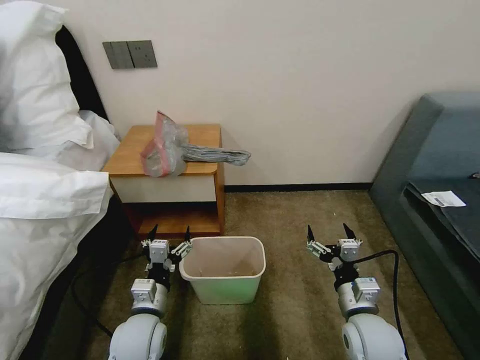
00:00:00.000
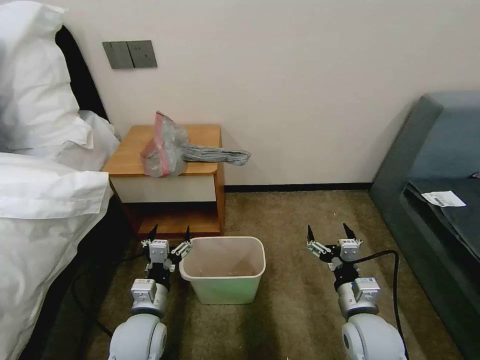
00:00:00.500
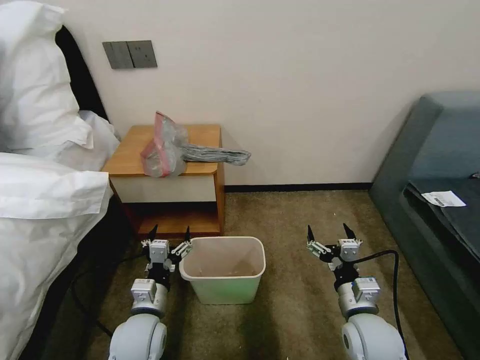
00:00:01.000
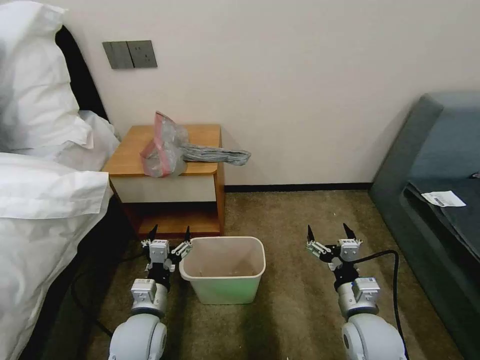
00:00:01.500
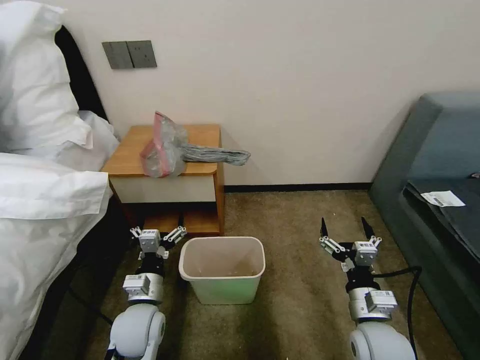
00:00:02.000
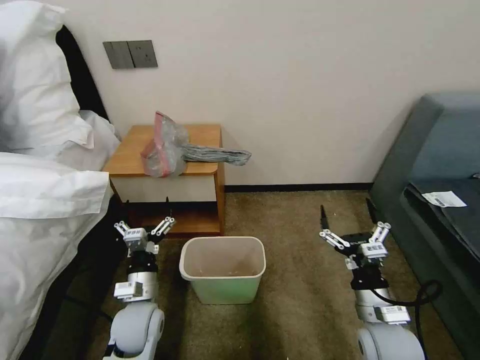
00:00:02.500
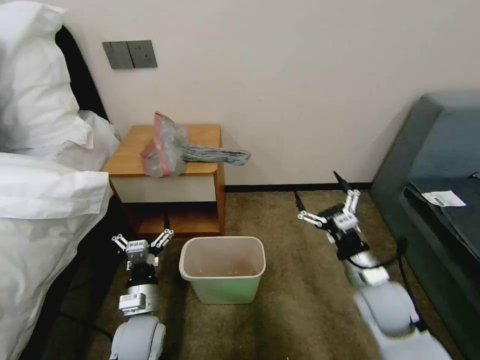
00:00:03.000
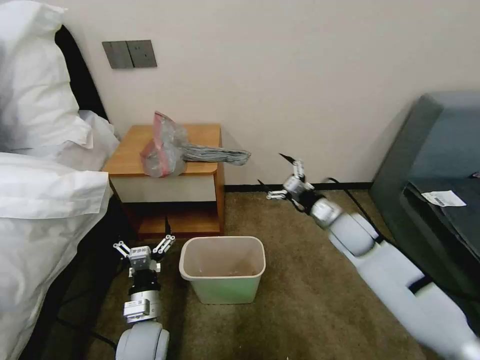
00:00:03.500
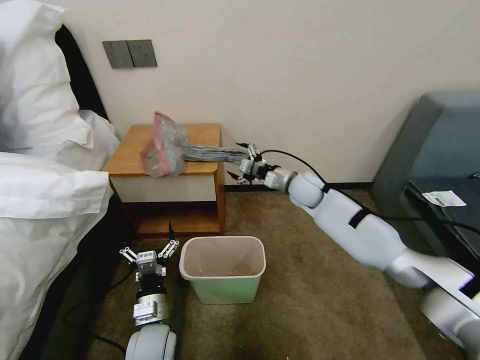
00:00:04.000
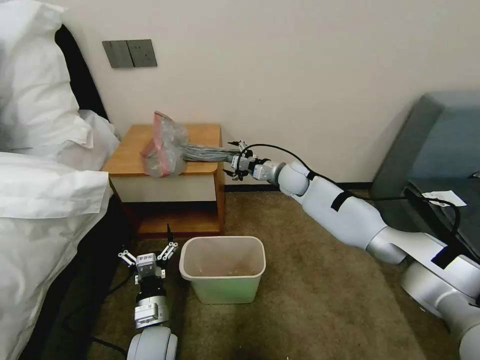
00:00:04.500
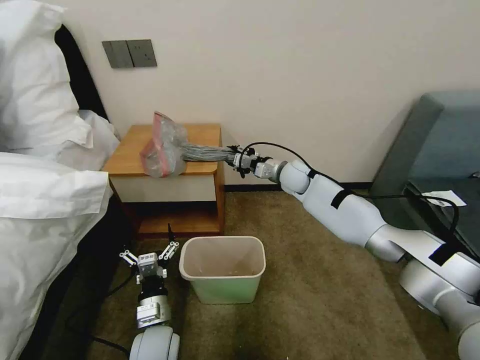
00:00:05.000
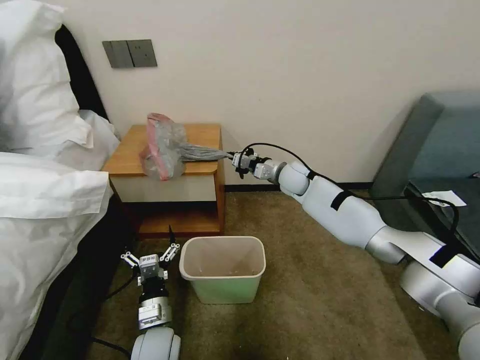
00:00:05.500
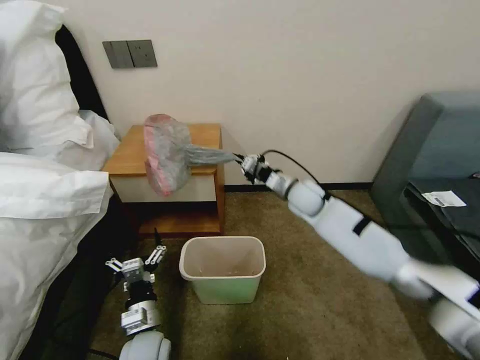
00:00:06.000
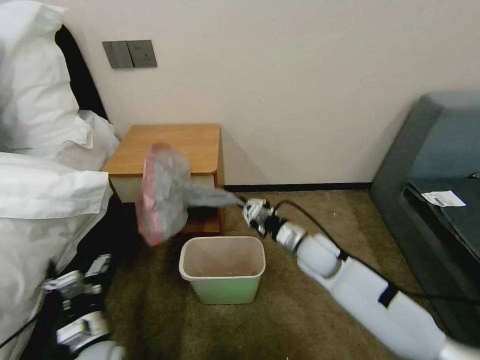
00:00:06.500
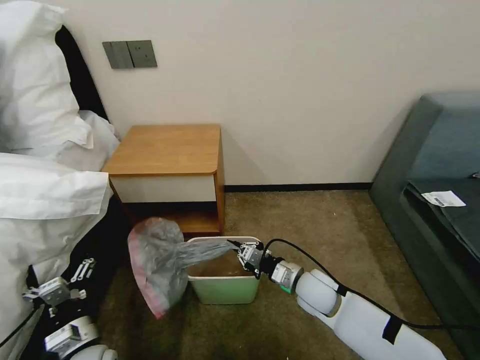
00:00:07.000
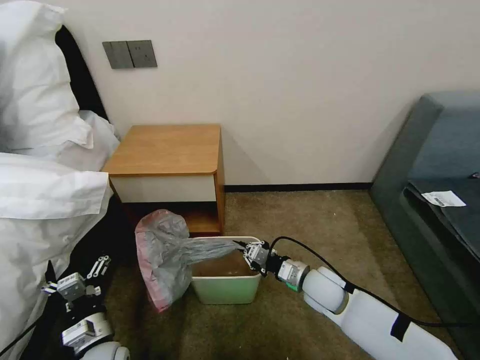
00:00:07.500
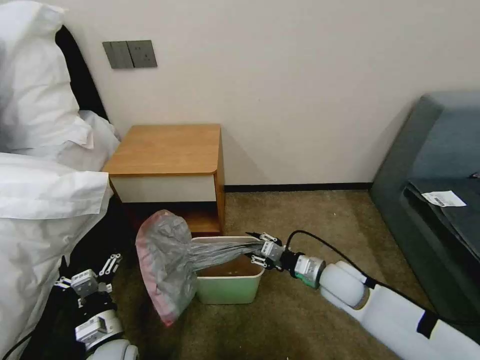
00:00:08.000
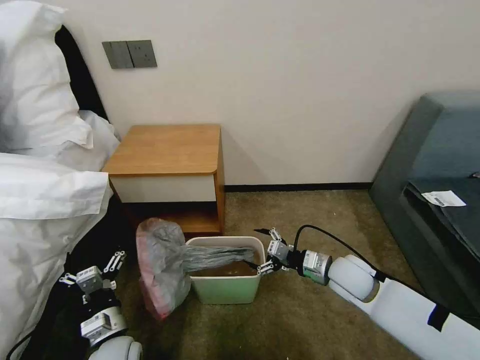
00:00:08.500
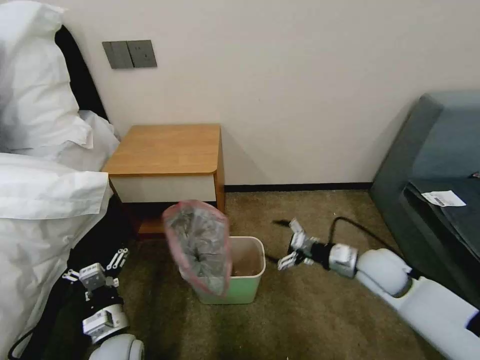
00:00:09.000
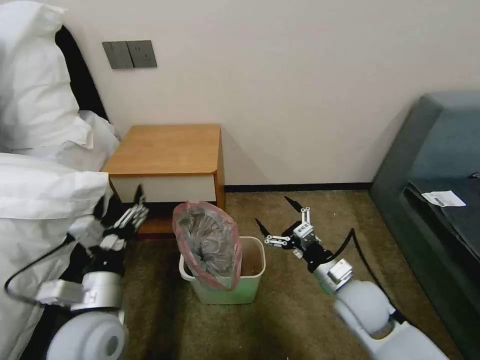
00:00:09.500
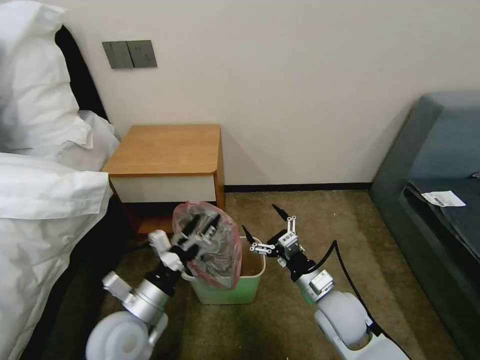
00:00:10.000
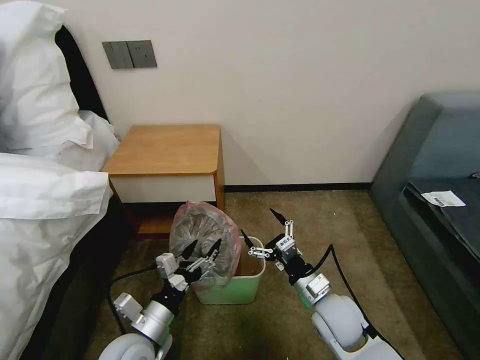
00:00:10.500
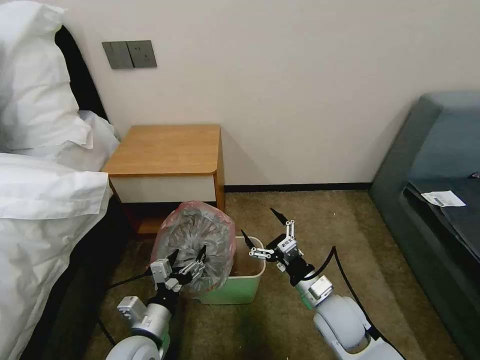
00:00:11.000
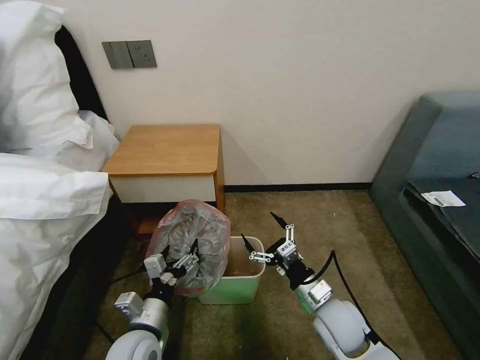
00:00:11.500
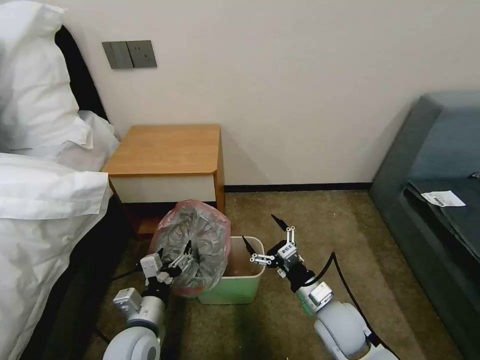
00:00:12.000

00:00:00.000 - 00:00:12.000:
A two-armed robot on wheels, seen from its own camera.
Task of the whole recording: Pick up the garbage bag from the table and place it over the trash can.
00:00:02.000 - 00:00:04.000: The left gripper is displaced downward by roughly 5 cm, while the right gripper is displaced forward by about 35 cm.
00:00:04.000 - 00:00:06.000: The right gripper closes its fingers.
00:00:06.000 - 00:00:08.000: The left gripper goes approximately 5 cm to the left; the right gripper heads backward and downward, covering approximately 20 cm, and opens up.
00:00:08.000 - 00:00:10.000: The right gripper goes approximately 5 cm backward, reaches some 10 cm to the right, then returns, and opens its fingers. The left gripper moves upward, approximately 10 cm.
00:00:10.000 - 00:00:12.000: The left gripper shifts about 5 cm downward.

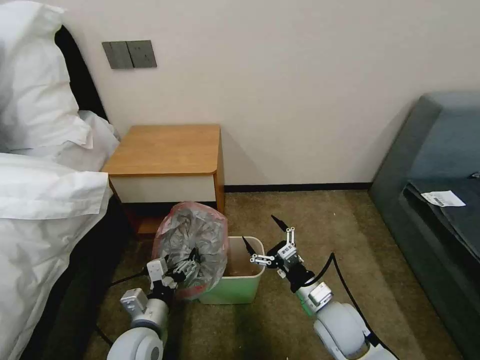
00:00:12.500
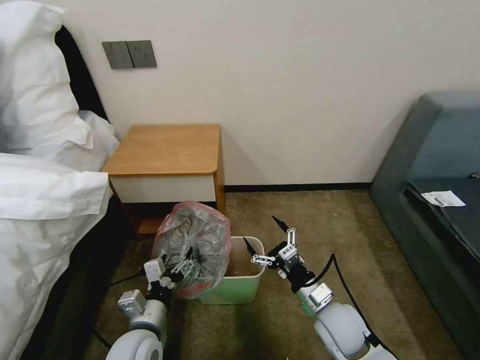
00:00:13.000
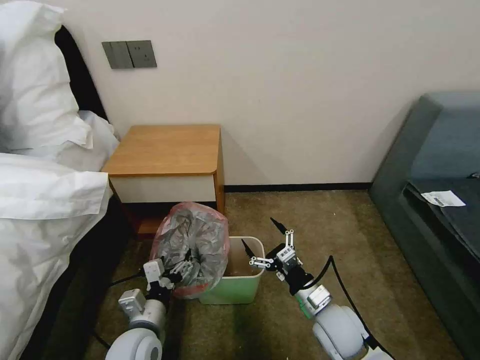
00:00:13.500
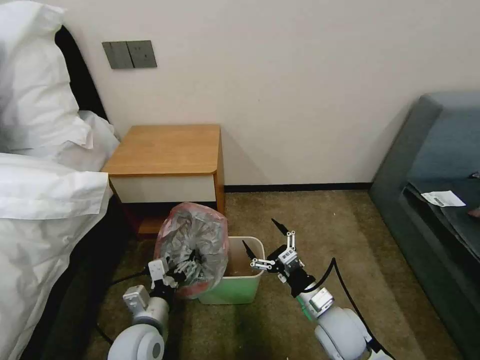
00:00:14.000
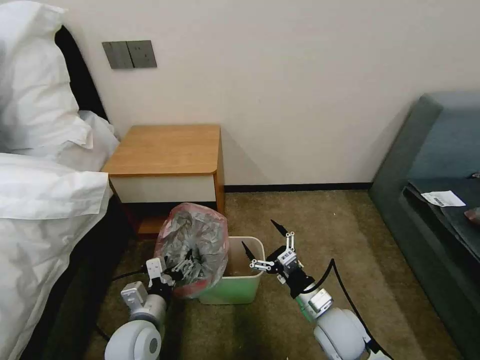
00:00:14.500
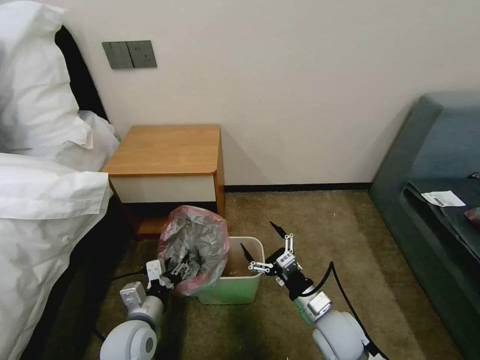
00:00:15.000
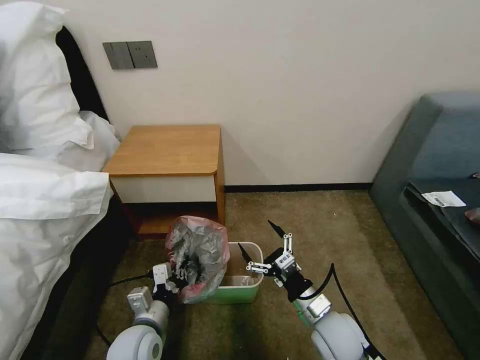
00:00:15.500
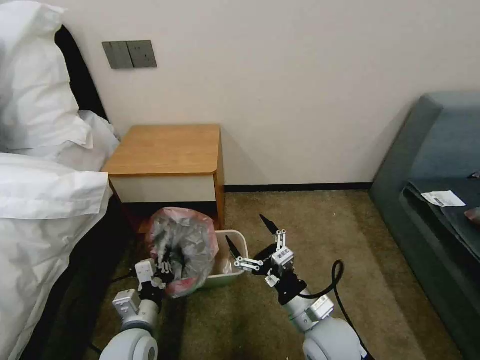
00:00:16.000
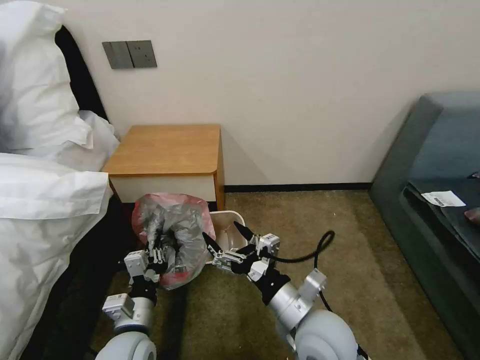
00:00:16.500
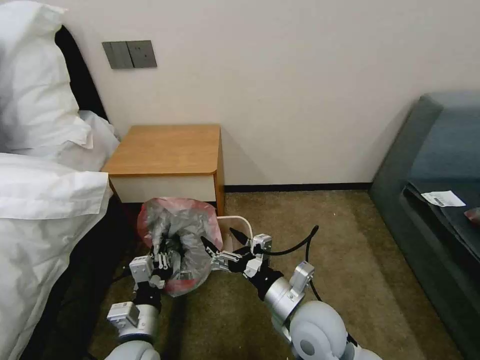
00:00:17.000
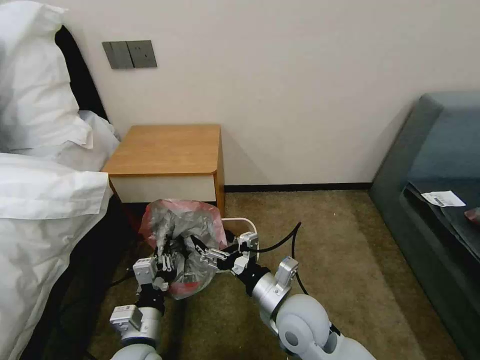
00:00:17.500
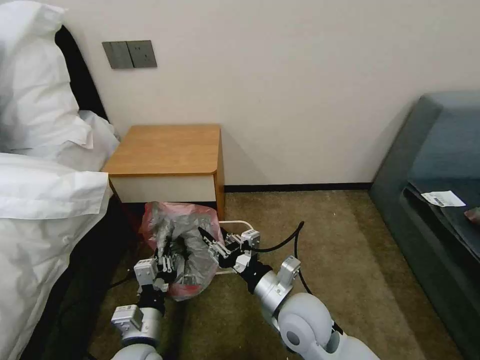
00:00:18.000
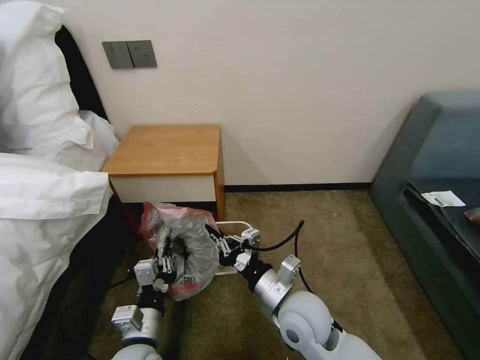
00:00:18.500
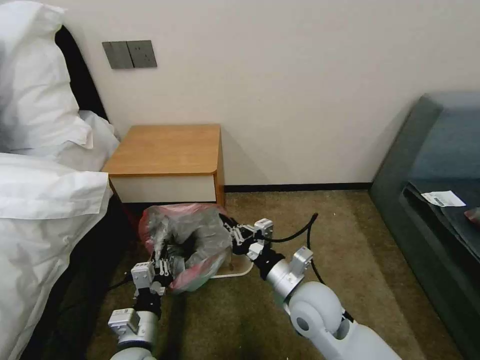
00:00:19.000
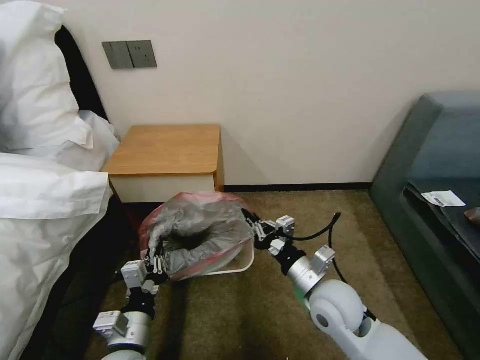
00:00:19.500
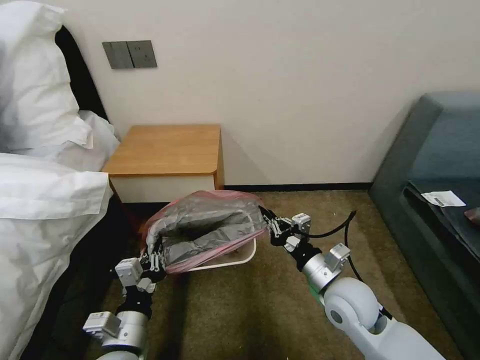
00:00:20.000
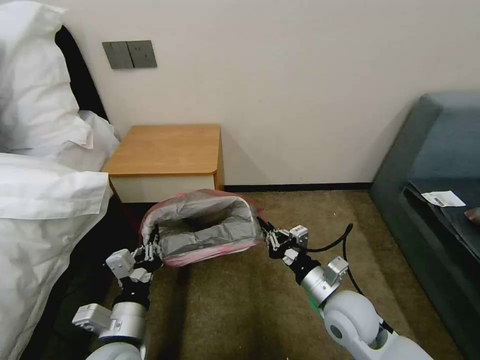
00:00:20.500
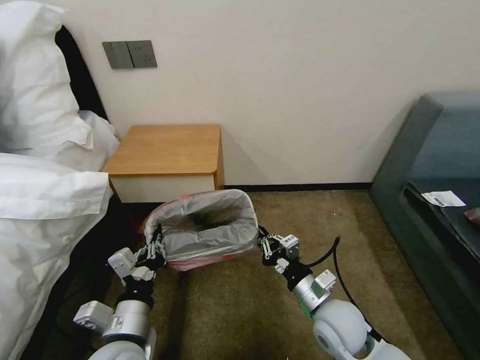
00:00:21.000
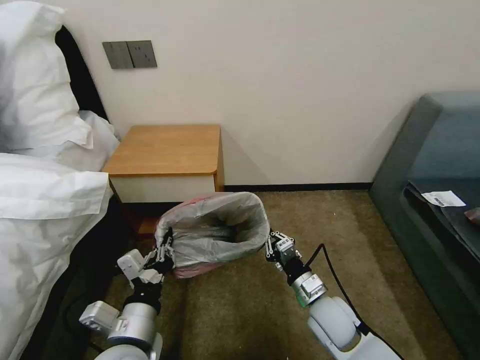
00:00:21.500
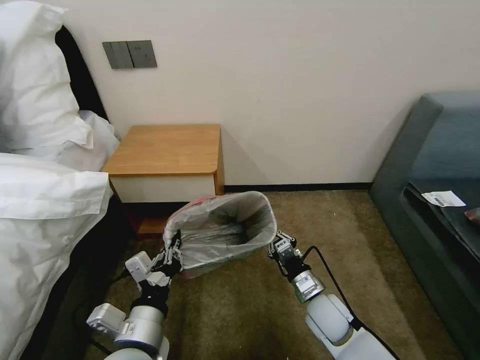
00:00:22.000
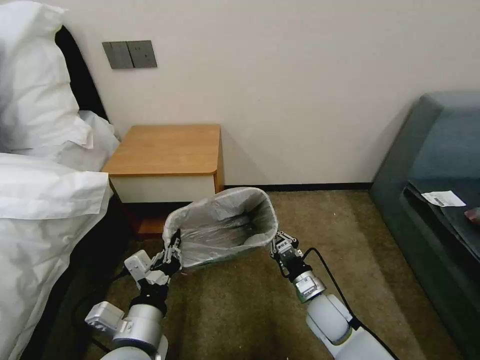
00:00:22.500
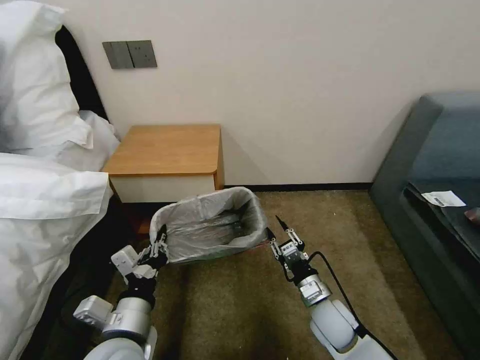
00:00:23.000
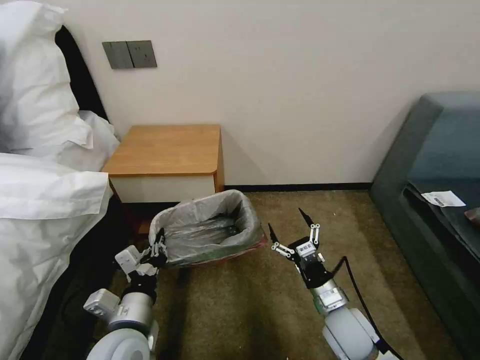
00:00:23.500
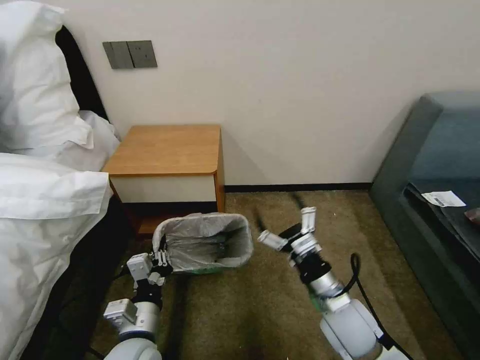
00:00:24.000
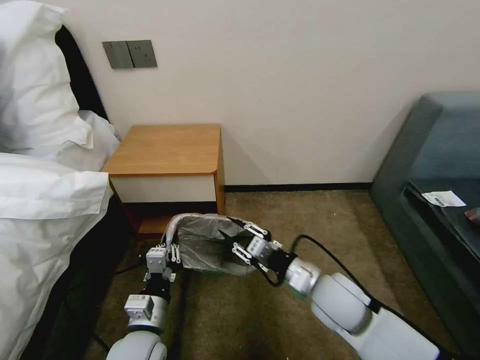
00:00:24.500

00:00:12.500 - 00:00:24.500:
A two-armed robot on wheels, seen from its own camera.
Task of the whole recording: Pick up the garbage bag from the table and place it over the trash can.
00:00:12.500 - 00:00:14.500: The grippers stay close to where they were, moving slightly.
00:00:14.500 - 00:00:16.500: The right gripper shifts roughly 15 cm upward and to the left; the left gripper closes.
00:00:16.500 - 00:00:18.500: The right gripper shifts by some 5 cm, and closes.
00:00:18.500 - 00:00:20.500: The right gripper shifts roughly 10 cm to the right, while the left gripper moves upward, roughly 5 cm.
00:00:20.500 - 00:00:22.500: The right gripper is displaced downward by some 10 cm.
00:00:22.500 - 00:00:24.500: The left gripper heads downward, covering some 5 cm; the right gripper travels upward by about 15 cm, and opens.

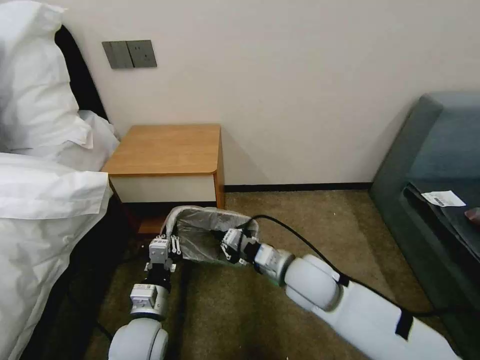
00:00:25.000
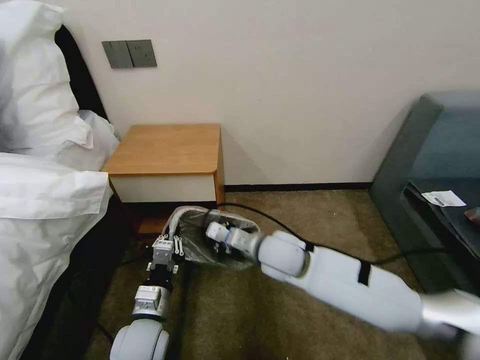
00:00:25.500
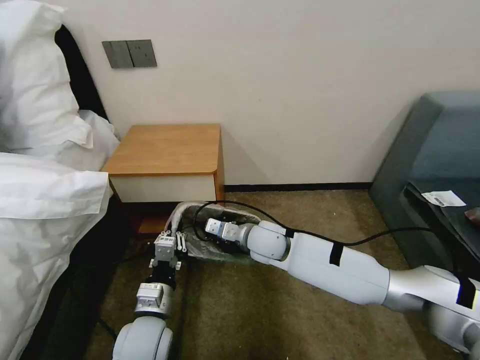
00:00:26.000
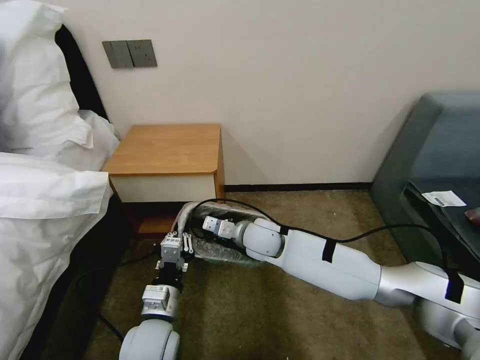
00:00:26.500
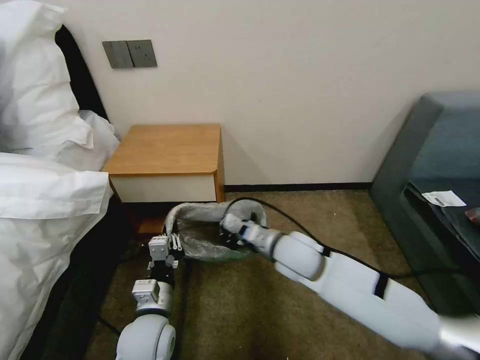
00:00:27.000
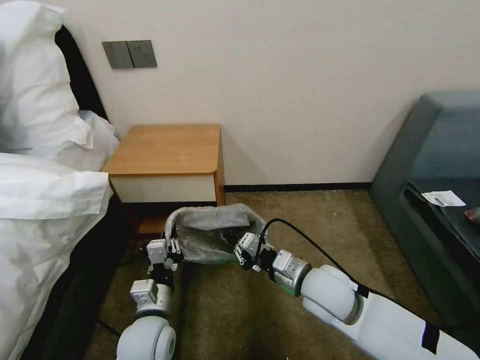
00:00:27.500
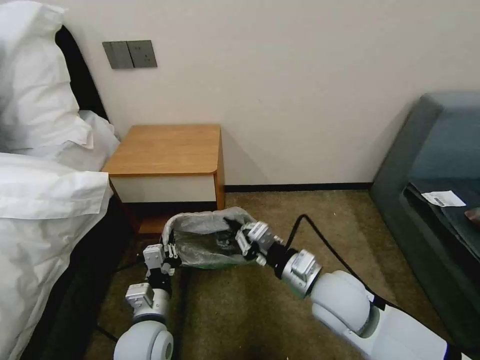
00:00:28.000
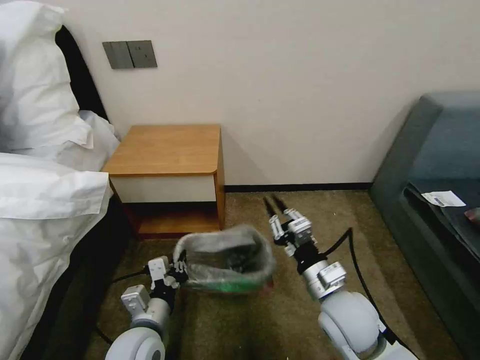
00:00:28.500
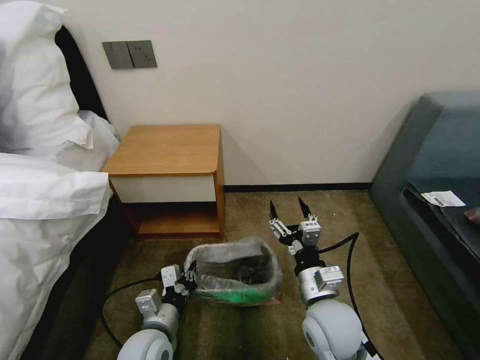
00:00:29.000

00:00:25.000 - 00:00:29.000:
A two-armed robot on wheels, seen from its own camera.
Task of the whole recording: Pick up the garbage bag from the table and place it over the trash can.
00:00:25.000 - 00:00:27.000: The right gripper moves forward, roughly 5 cm.
00:00:27.000 - 00:00:29.000: The right gripper moves backward and to the right, some 15 cm, and opens its fingers.
